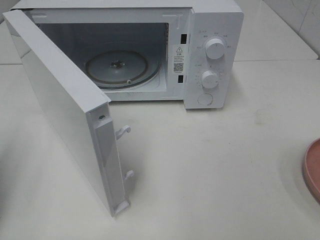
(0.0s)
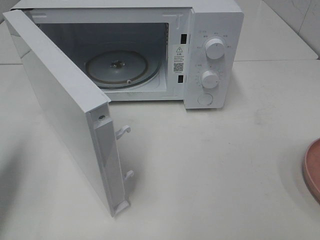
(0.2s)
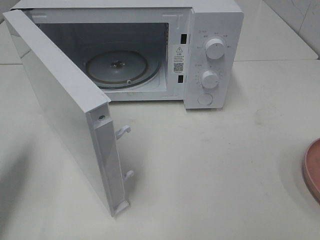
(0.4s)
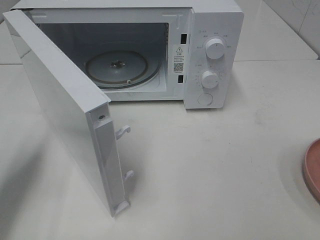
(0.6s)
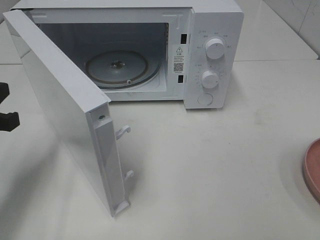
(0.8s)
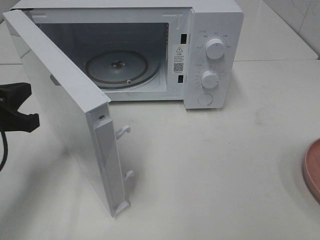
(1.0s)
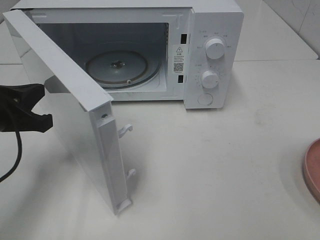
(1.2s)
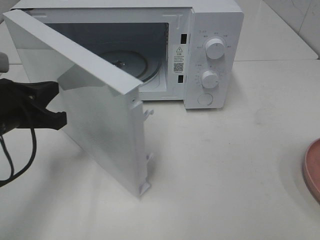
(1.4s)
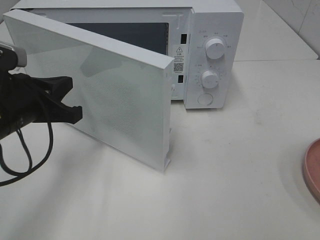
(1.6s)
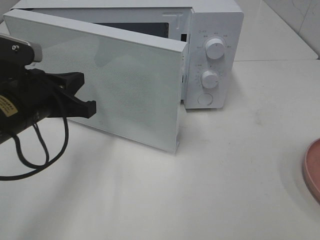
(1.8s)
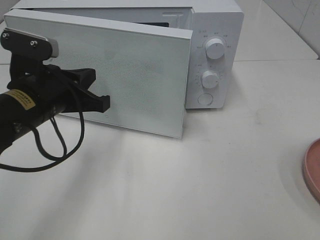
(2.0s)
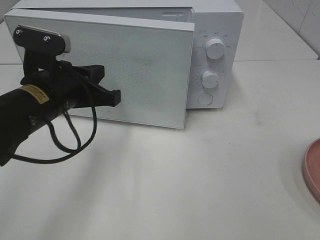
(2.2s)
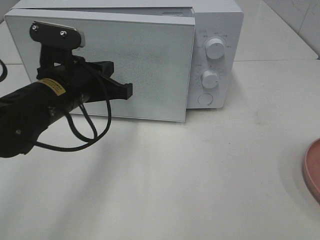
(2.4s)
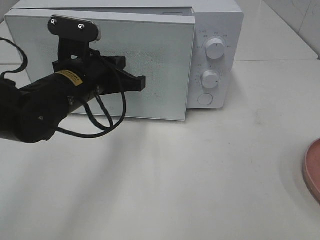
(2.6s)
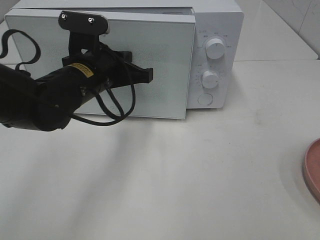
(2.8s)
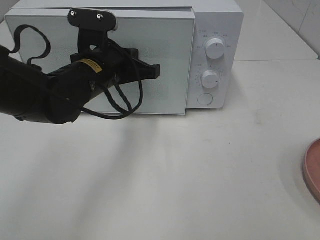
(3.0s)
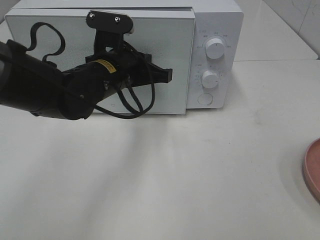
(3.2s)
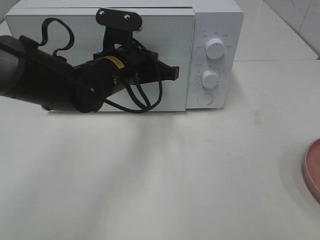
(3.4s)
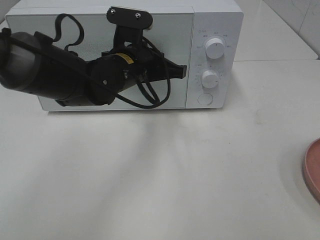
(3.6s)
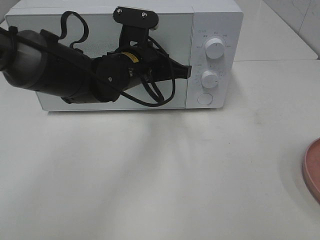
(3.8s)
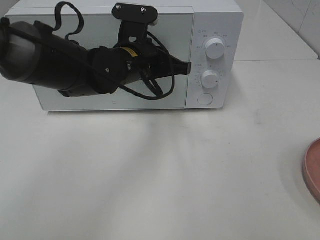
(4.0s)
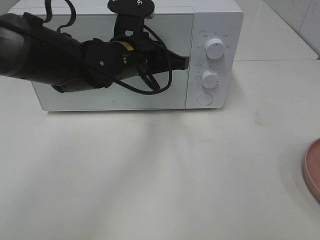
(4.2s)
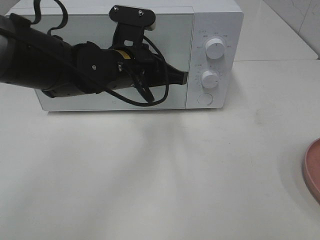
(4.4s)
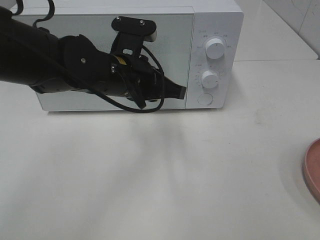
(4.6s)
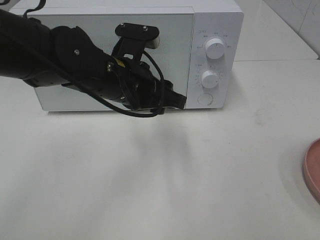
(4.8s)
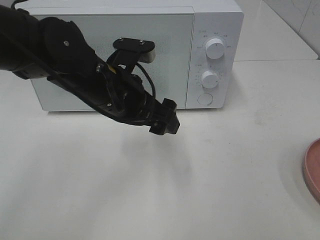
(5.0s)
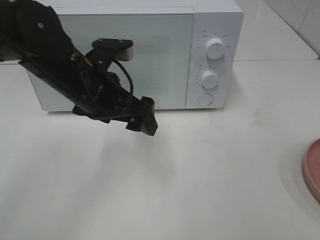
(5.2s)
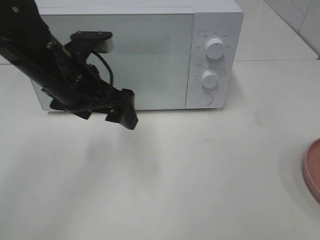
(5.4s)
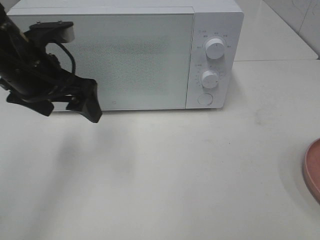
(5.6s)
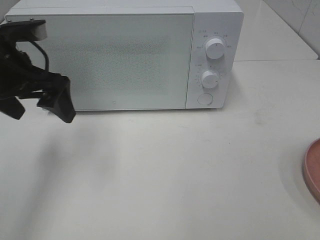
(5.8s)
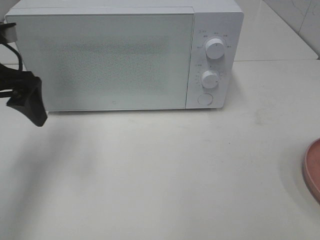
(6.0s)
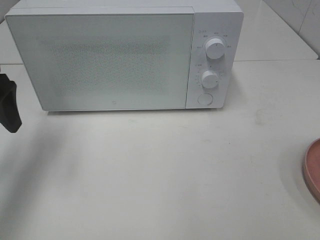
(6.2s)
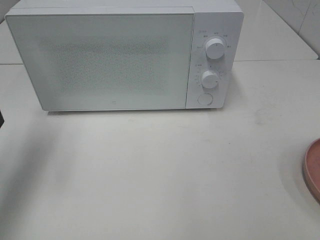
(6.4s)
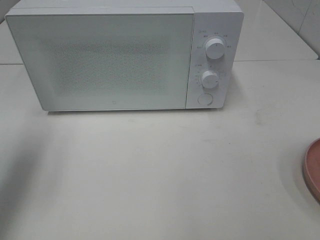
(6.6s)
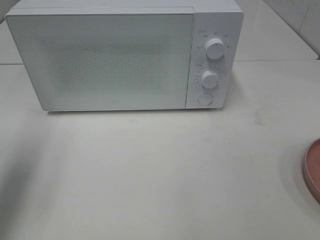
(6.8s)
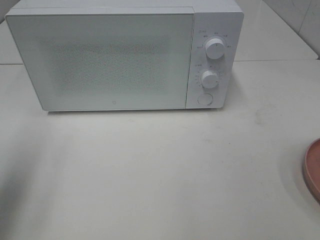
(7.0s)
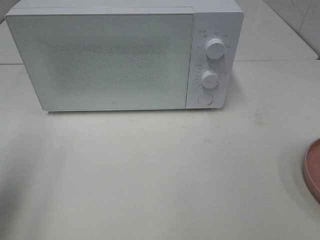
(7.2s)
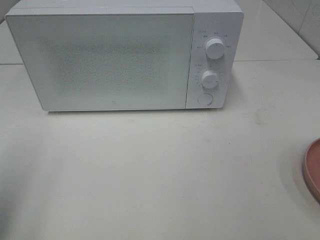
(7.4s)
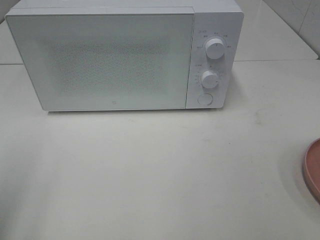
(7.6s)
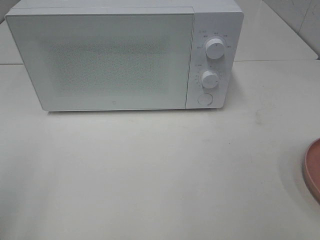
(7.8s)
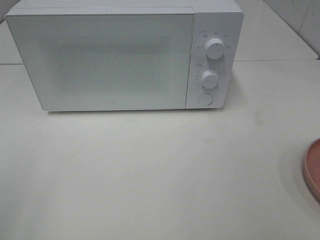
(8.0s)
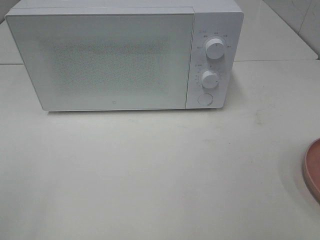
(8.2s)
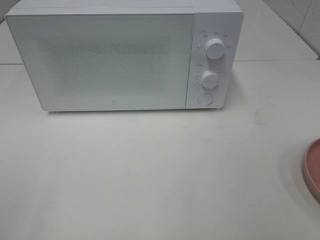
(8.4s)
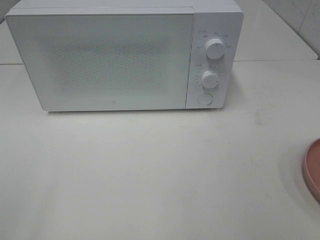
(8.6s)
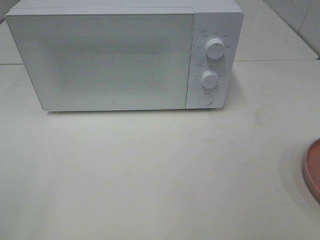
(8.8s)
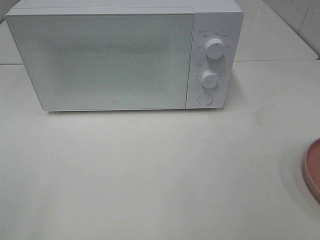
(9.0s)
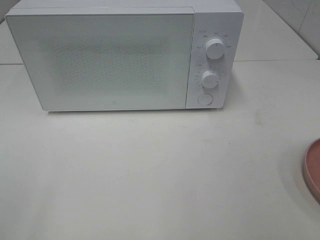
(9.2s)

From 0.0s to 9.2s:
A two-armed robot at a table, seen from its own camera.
Task of the whole recording: Heat the burger.
Step, from 0.0s to 4.4s: Left hand: close the microwave door.
From 0.0s to 1.6s: The left gripper is displaced to the right, forward and downward by about 15 cm.
From 1.6s to 3.0s: The left gripper moves to the right and forward, some 15 cm.
From 4.6s to 6.2s: The left gripper travels to the left by some 25 cm, and opens up.
From 6.2s to 7.6s: The left gripper heads backward, covering roughly 20 cm.

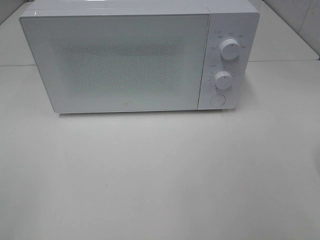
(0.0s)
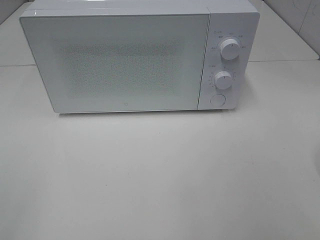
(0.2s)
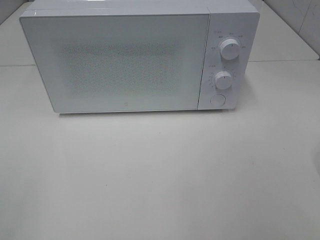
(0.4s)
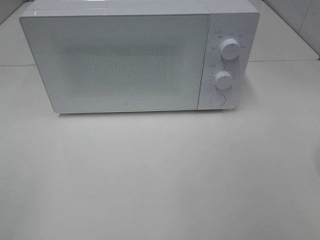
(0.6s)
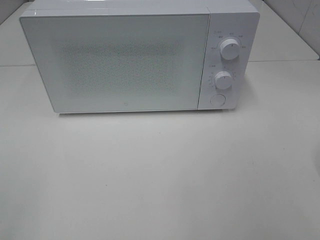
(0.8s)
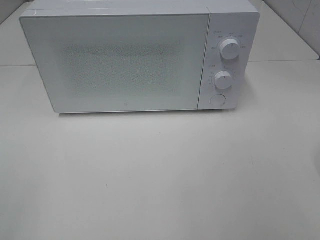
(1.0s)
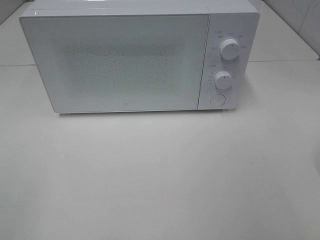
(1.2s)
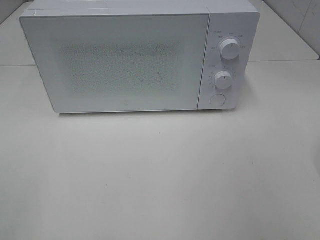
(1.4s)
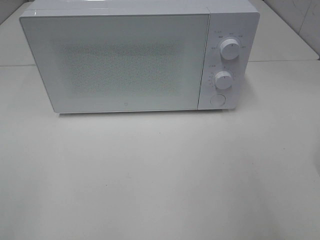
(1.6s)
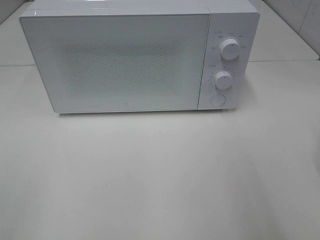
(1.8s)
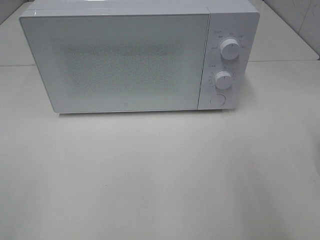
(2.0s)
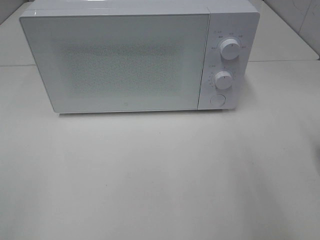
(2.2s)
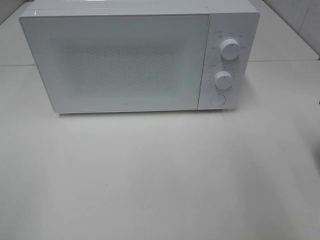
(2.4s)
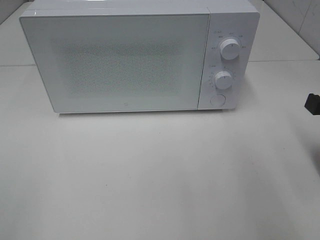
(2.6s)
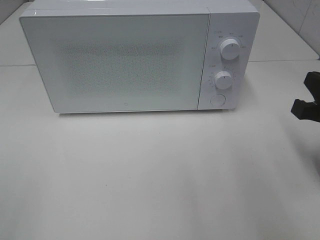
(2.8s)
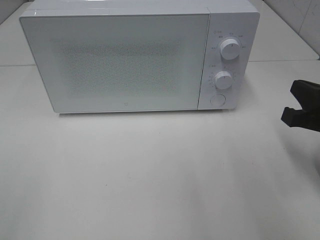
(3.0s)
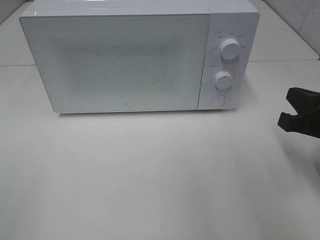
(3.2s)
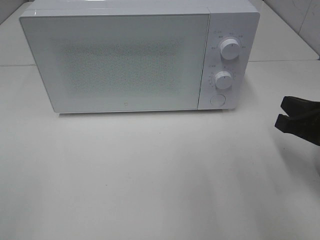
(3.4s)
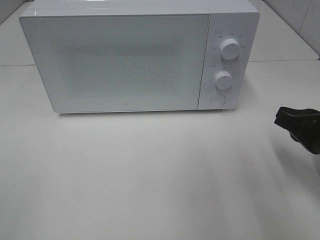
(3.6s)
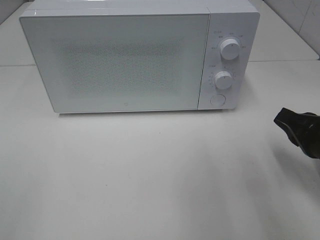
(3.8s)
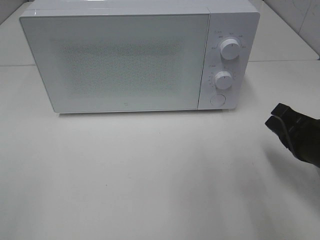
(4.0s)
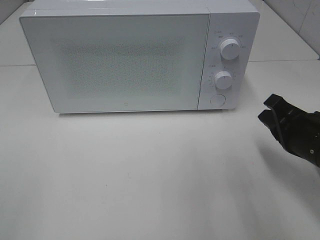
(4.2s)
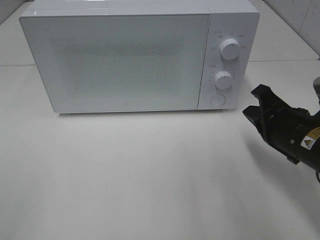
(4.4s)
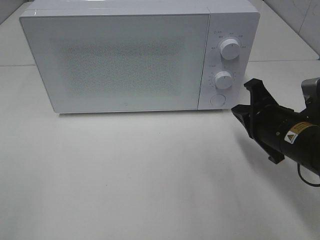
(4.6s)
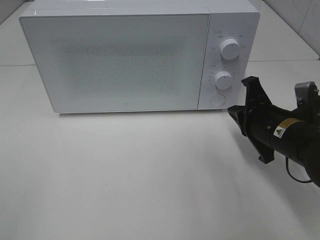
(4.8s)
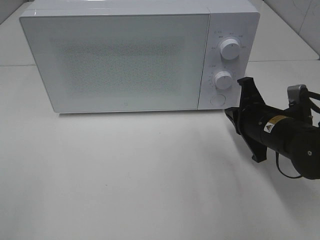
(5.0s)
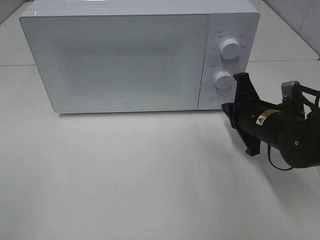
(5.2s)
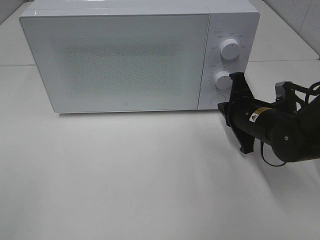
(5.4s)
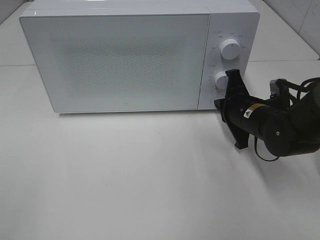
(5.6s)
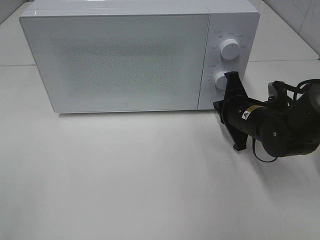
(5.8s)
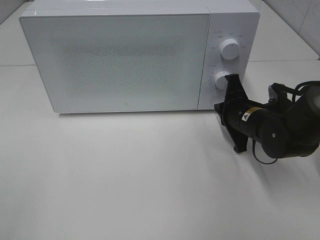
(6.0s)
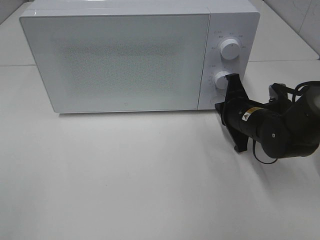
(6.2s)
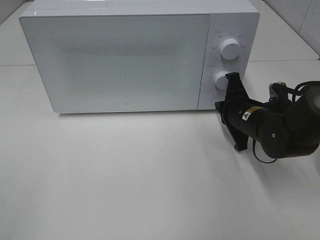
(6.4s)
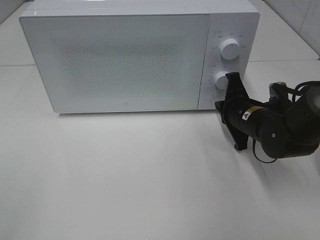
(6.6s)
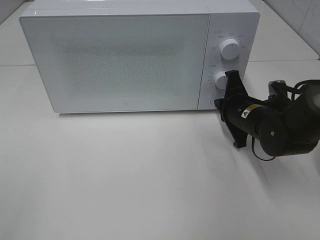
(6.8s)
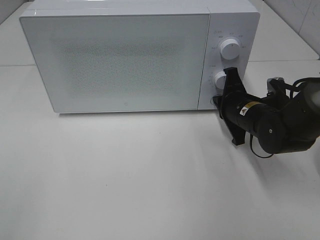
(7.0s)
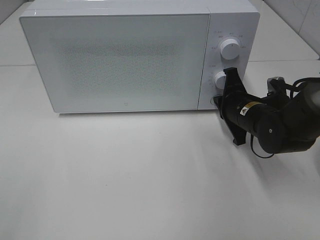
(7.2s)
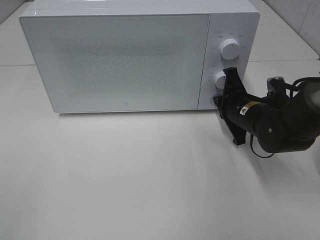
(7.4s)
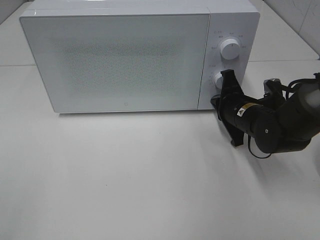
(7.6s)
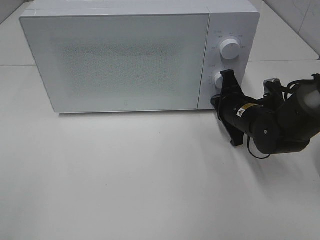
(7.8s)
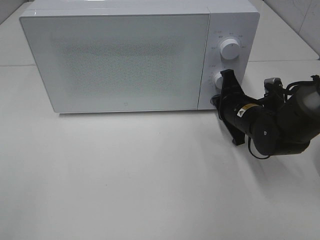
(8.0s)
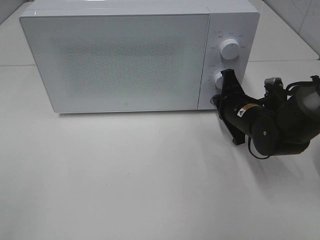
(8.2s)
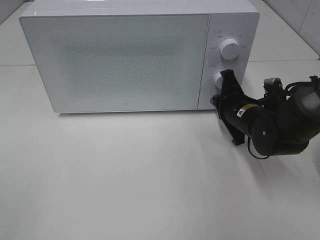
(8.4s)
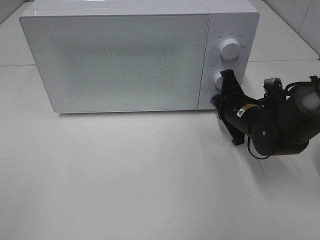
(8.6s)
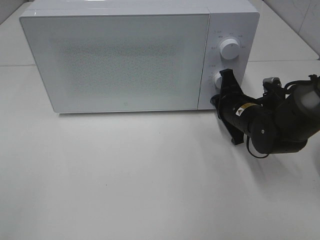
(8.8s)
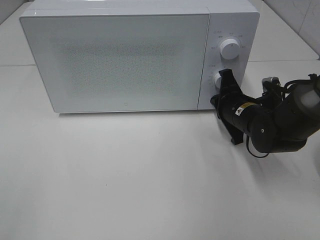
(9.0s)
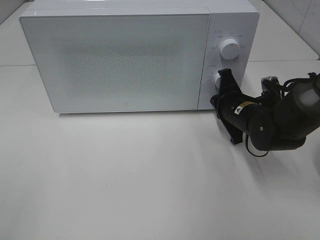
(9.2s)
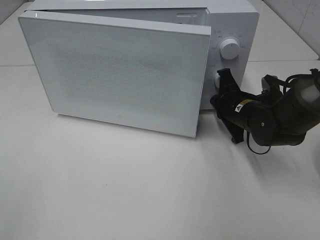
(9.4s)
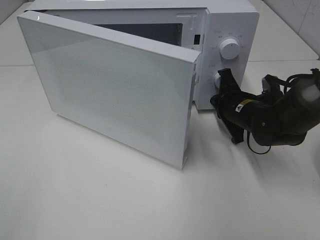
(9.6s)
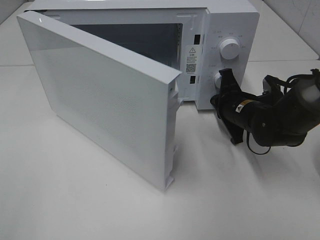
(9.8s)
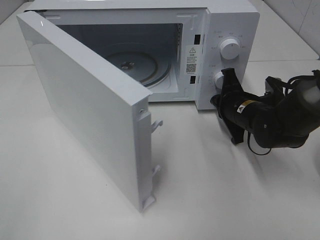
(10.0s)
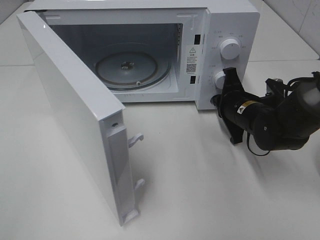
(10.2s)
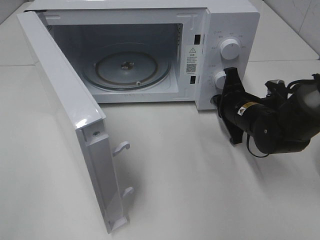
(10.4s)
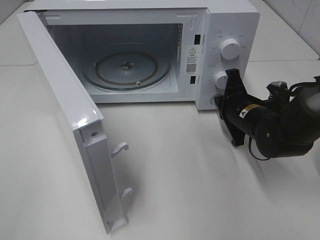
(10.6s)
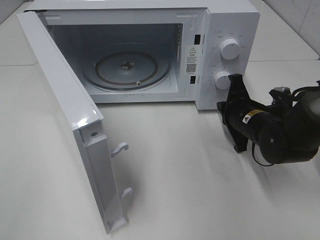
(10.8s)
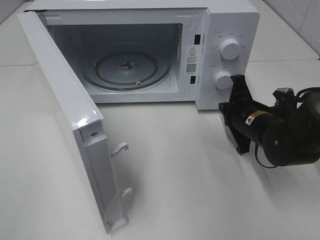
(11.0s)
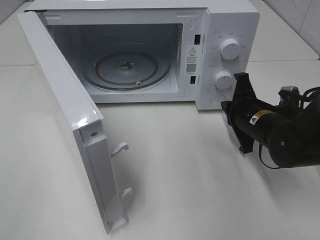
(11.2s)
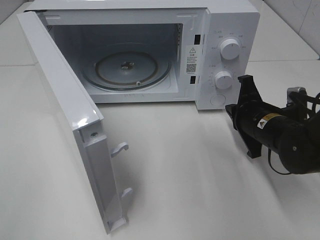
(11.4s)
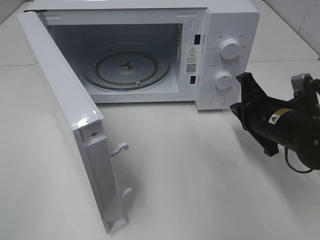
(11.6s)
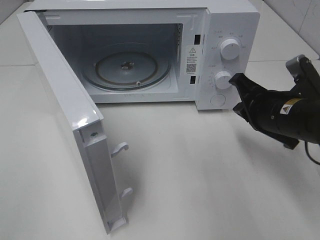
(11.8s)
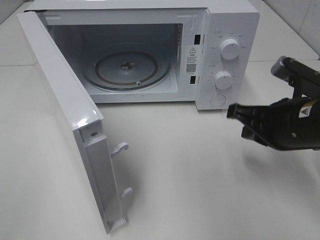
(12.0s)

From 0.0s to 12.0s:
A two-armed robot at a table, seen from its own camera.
Task of the whole recording: Heat the burger.
Step, from 0.0s to 10.8s: Right hand: press the switch.
From 1.6s to 3.0s: The right gripper shifts some 15 cm downward and forward.
From 3.0s to 4.4s: The right gripper heads to the left, covering roughly 5 cm.
From 4.4s to 6.0s: The right gripper shifts approximately 10 cm forward and downward.
From 6.0s to 7.6s: Both grippers stay about where they are.
From 7.6s to 9.0s: Both grippers stay put.
From 10.4s to 12.0s: The right gripper heads backward and upward, covering about 15 cm.

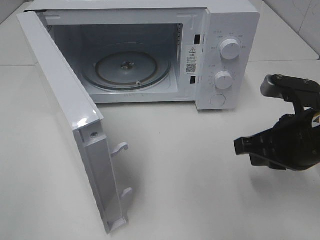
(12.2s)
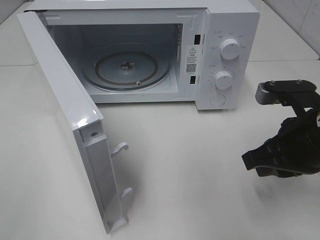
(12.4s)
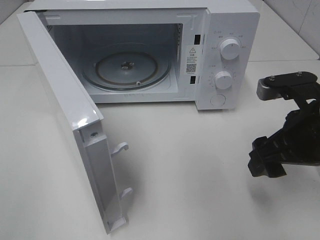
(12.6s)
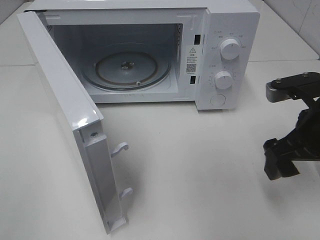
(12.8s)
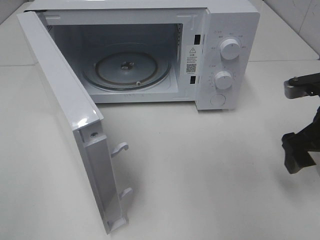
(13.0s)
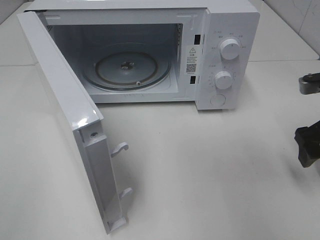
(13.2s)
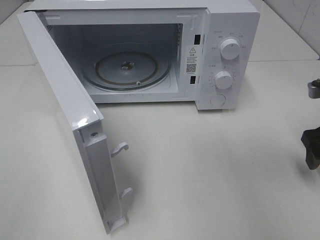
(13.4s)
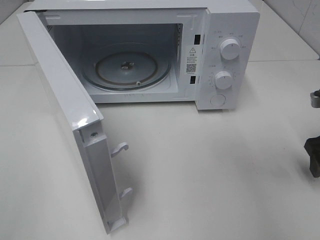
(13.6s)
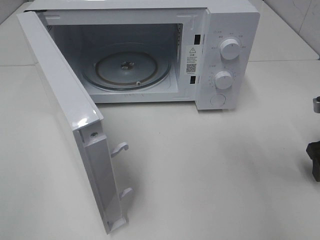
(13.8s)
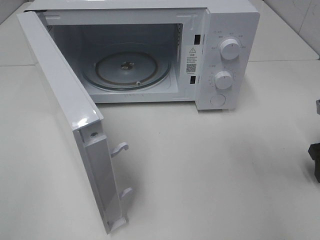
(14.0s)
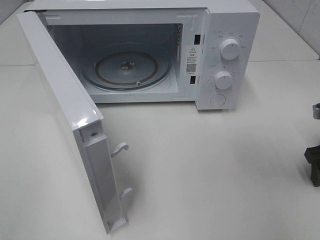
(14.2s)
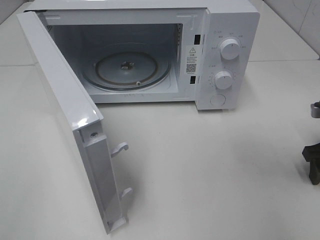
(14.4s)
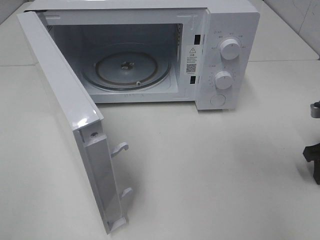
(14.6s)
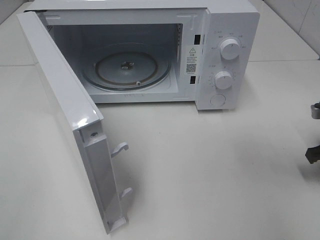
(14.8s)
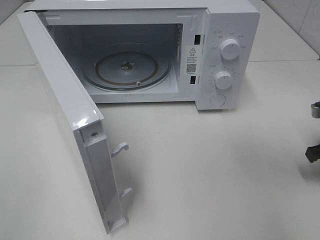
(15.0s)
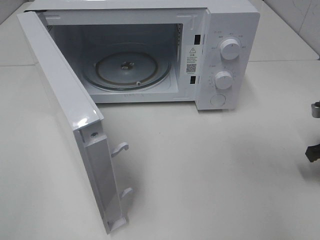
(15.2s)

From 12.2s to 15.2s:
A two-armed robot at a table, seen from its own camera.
Task of the whole recording: Heat the burger.
From 12.2s to 13.8s: The right gripper is displaced to the right and forward by approximately 15 cm, and opens its fingers.
